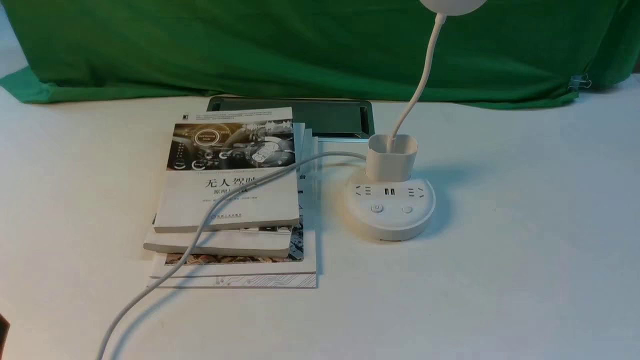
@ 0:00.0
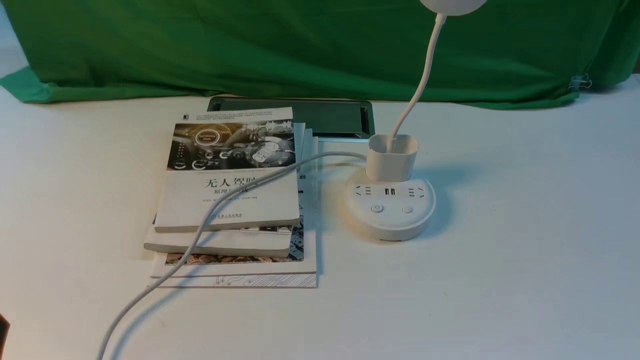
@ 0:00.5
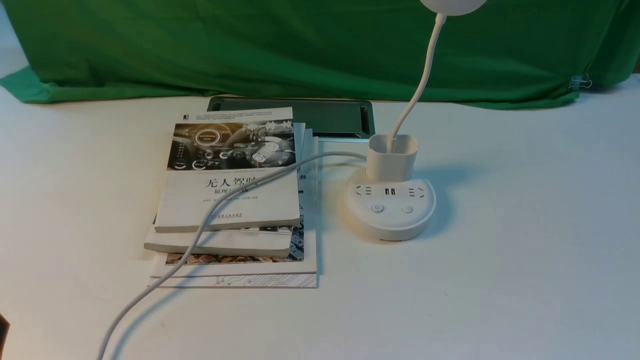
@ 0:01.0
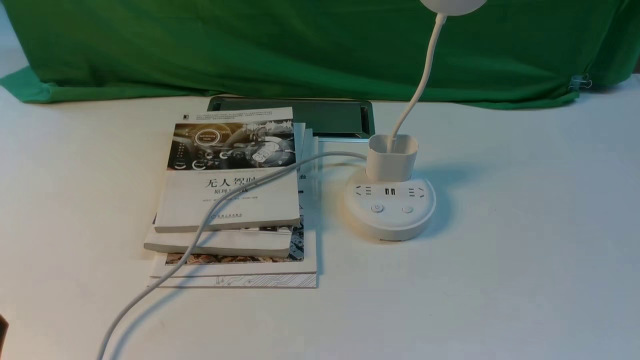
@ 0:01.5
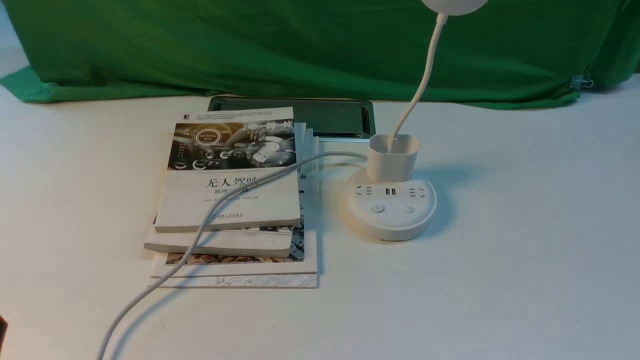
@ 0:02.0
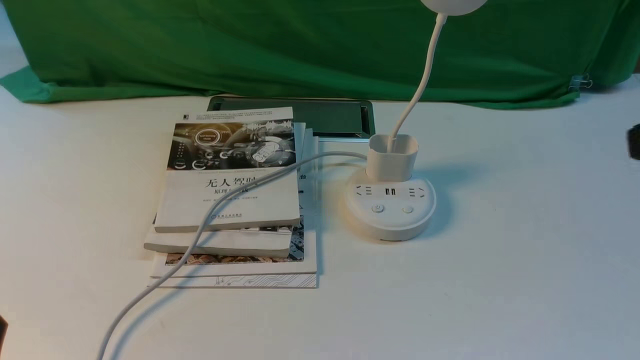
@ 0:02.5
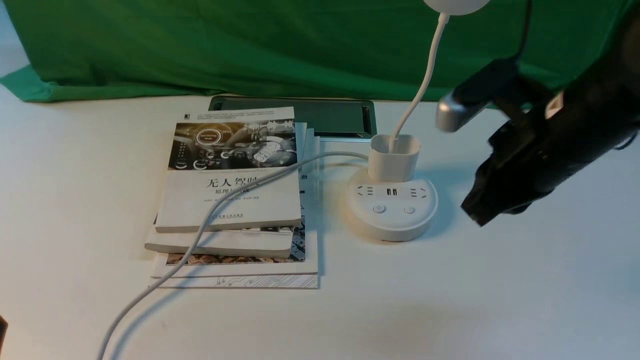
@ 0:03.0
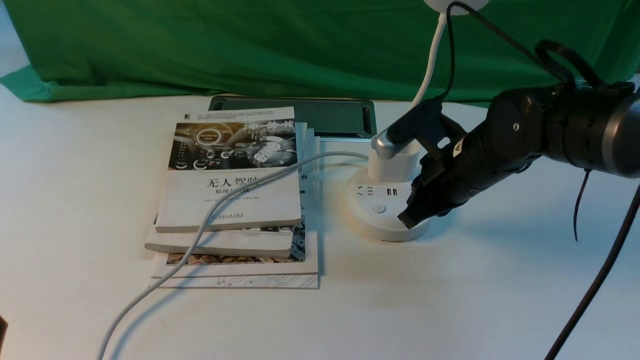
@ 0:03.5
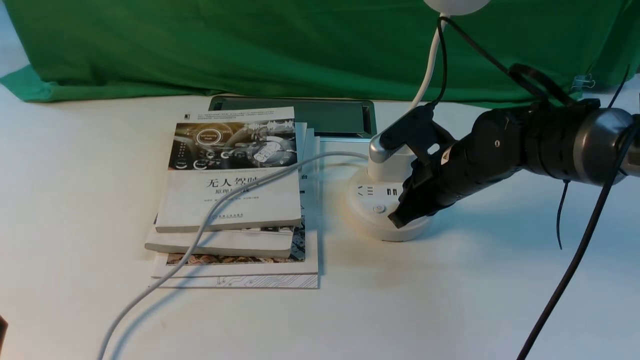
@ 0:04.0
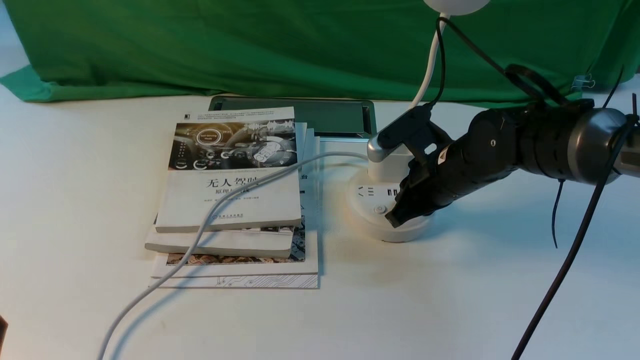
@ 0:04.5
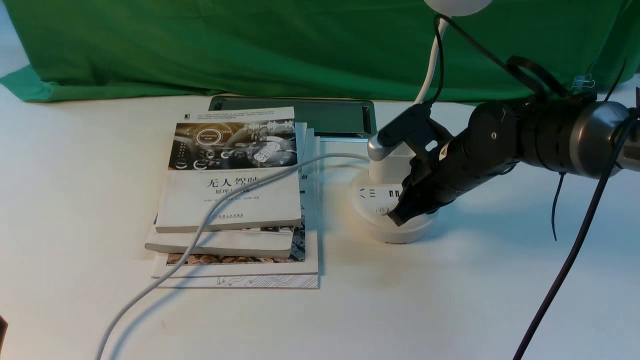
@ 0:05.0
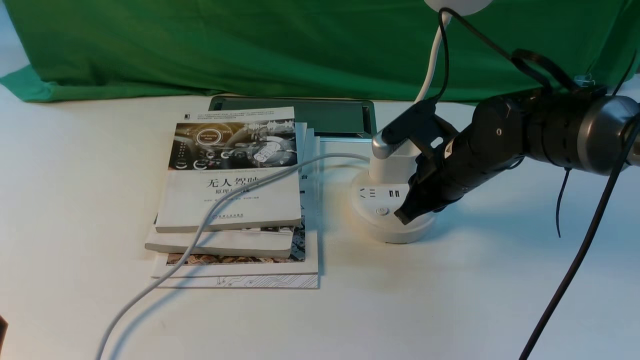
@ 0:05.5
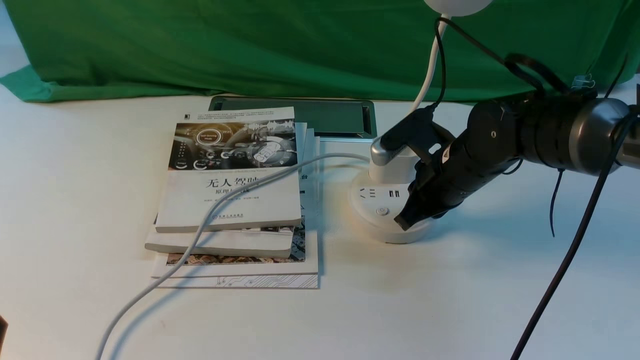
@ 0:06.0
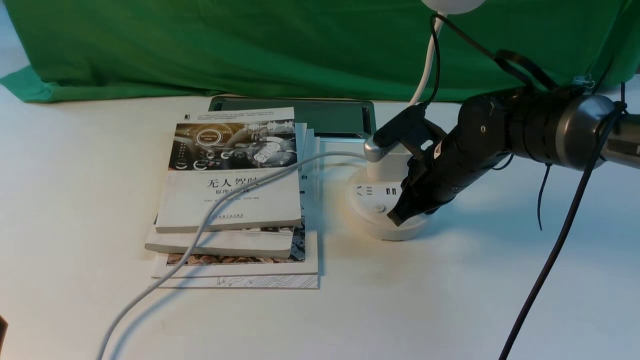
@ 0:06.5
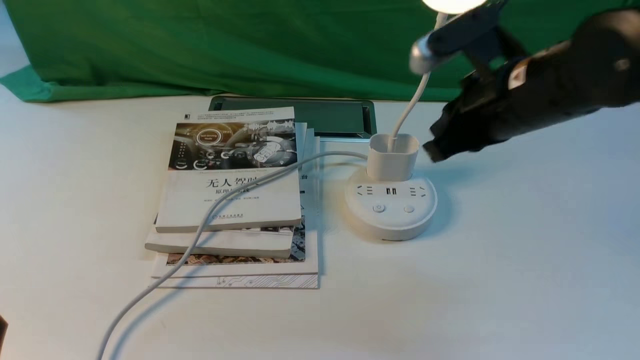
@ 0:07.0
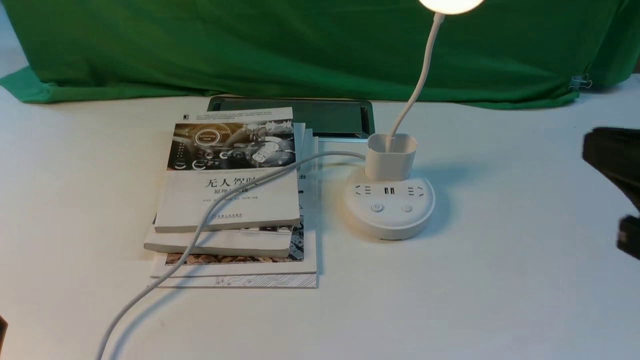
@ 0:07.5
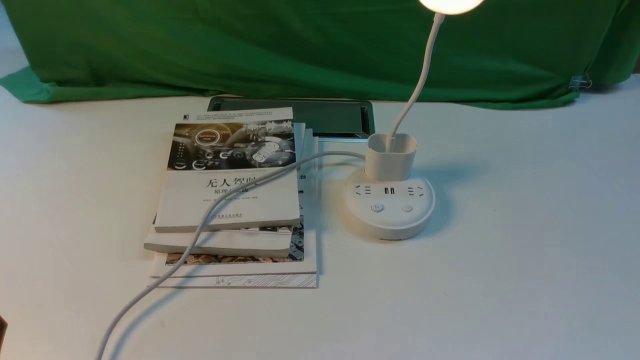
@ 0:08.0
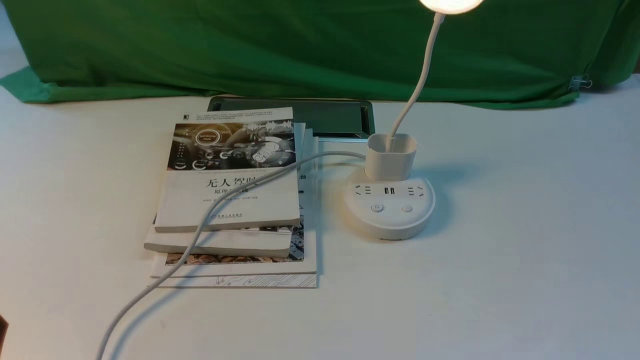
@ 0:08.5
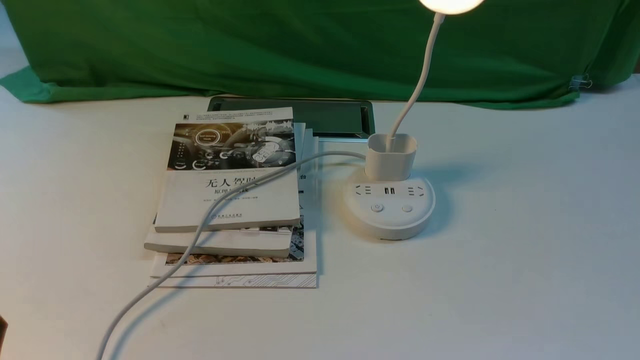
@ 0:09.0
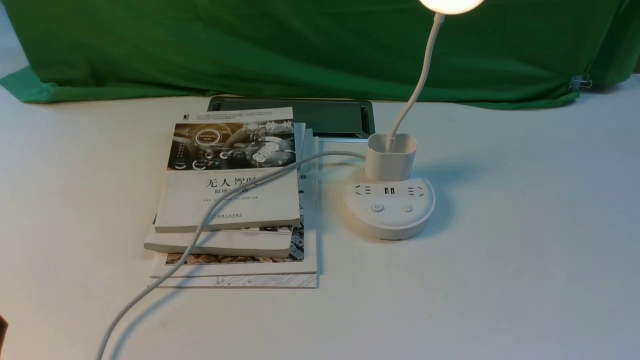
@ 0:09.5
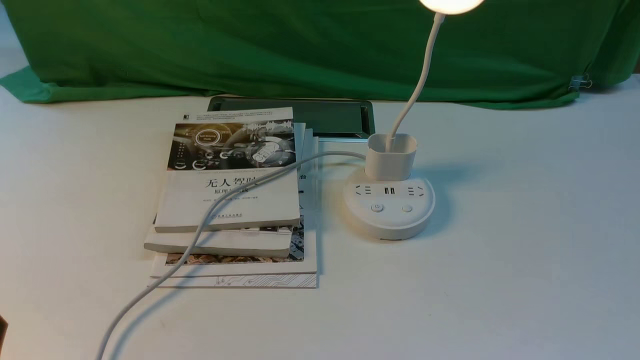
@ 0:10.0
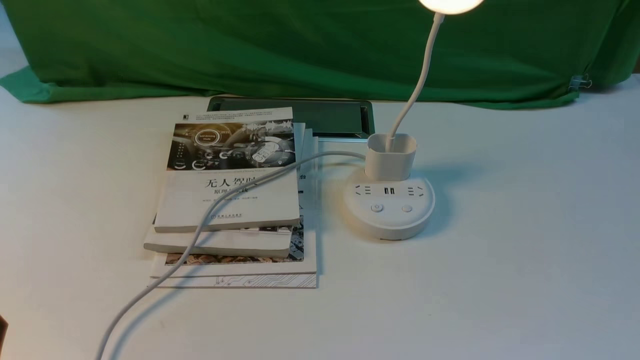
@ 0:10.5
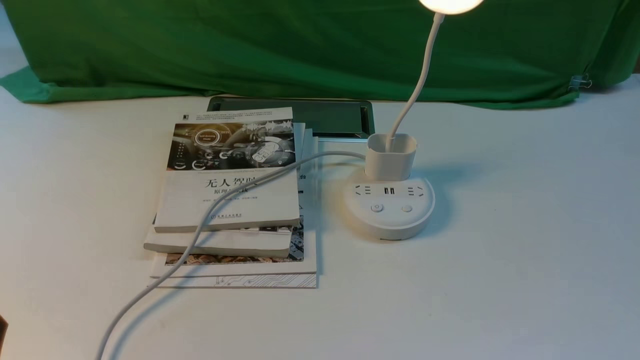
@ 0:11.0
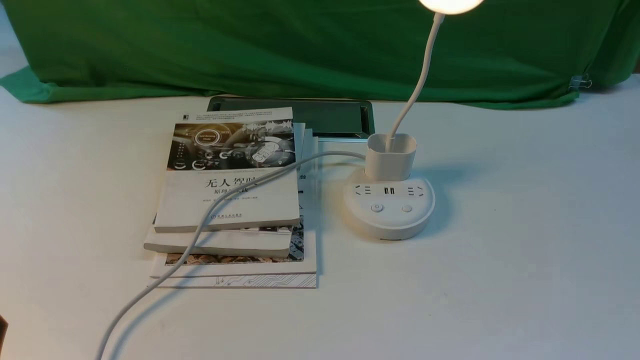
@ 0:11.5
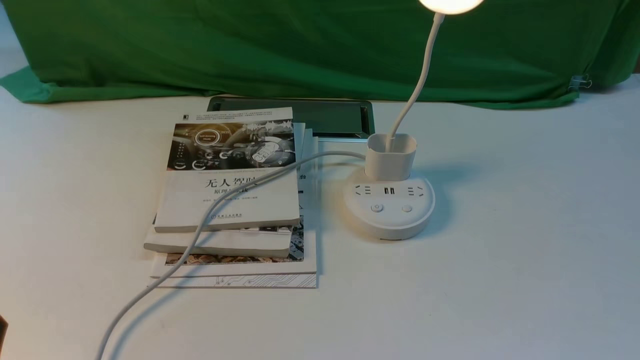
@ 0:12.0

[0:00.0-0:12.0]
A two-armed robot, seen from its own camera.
Step, 0:00.0 to 0:06.5: use the right arm to press the button switch on the lamp holder.
0:02.0 to 0:04.0: The right gripper is displaced forward and to the left by about 35 cm, and closes its fingers.
0:04.0 to 0:06.0: The grippers stay close to where they were, moving slightly.
0:06.0 to 0:08.0: The right gripper shifts about 35 cm backward and to the right, and opens up.
0:10.0 to 0:12.0: Neither gripper changes place.

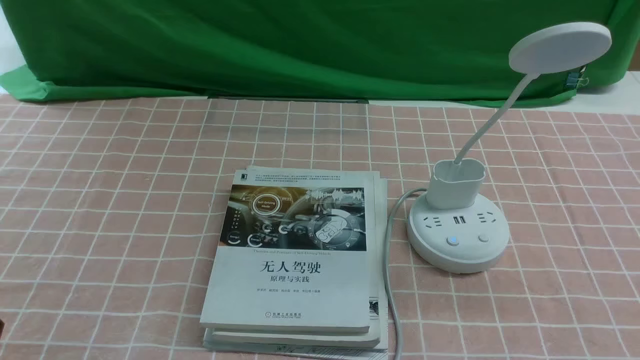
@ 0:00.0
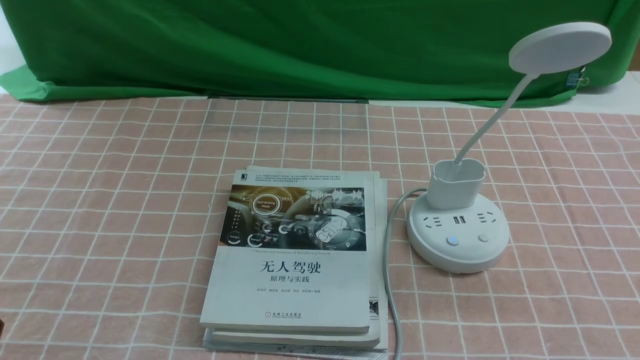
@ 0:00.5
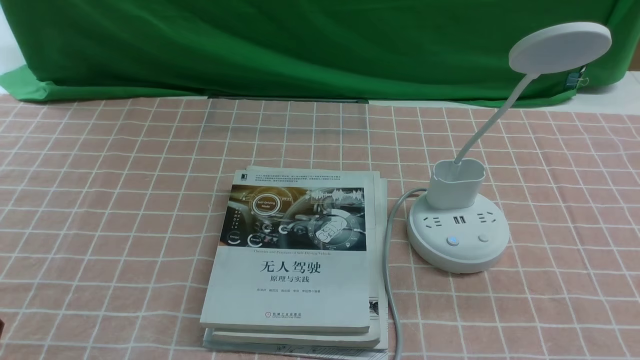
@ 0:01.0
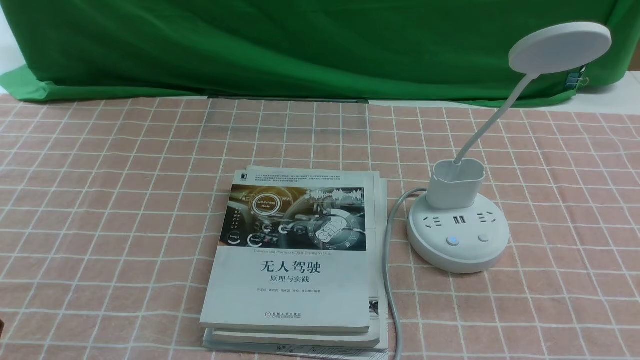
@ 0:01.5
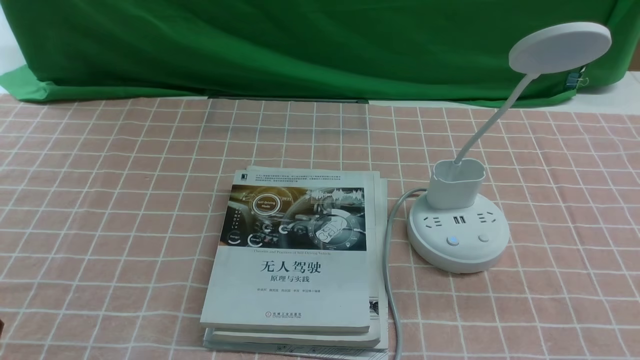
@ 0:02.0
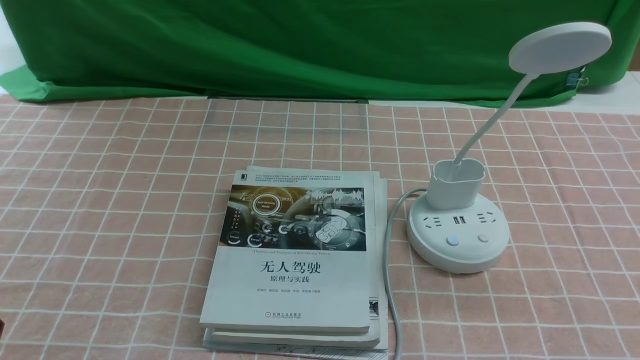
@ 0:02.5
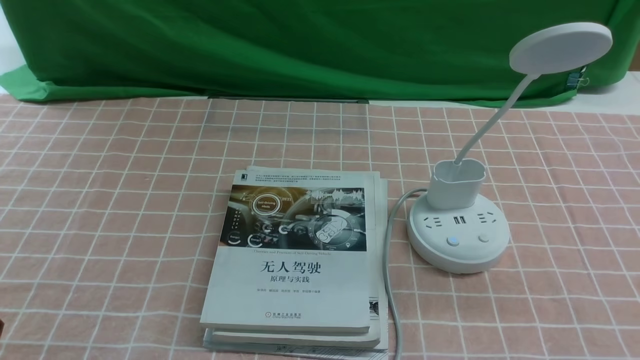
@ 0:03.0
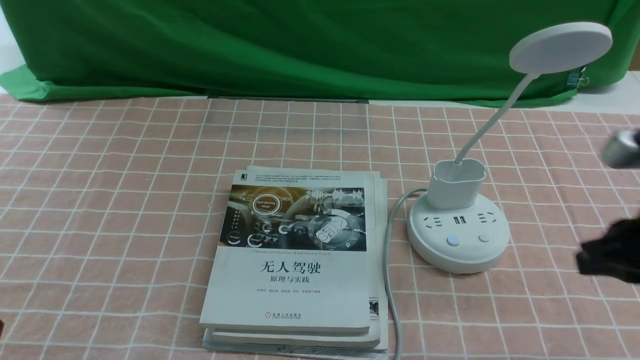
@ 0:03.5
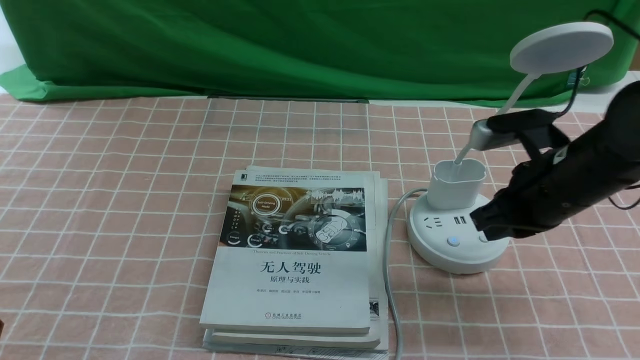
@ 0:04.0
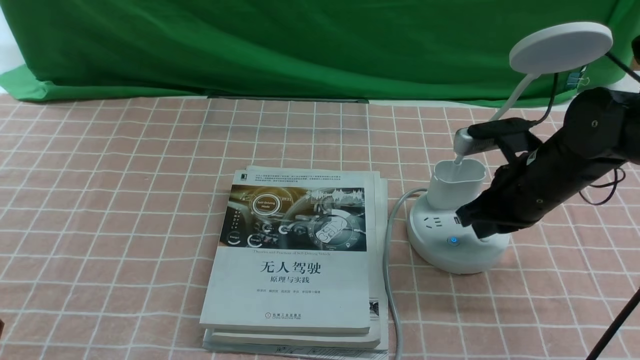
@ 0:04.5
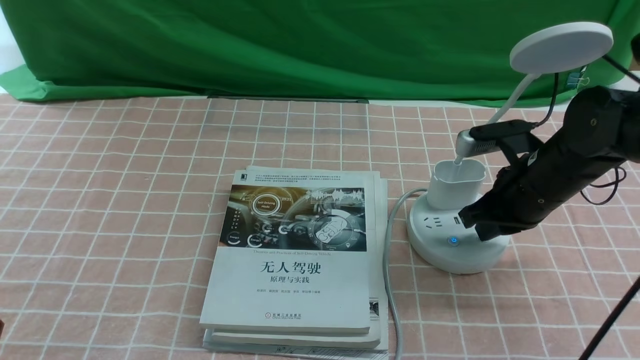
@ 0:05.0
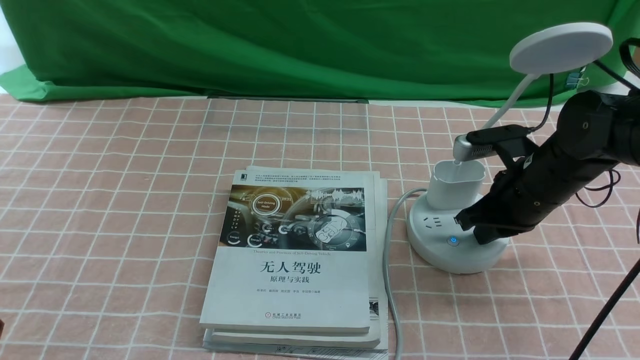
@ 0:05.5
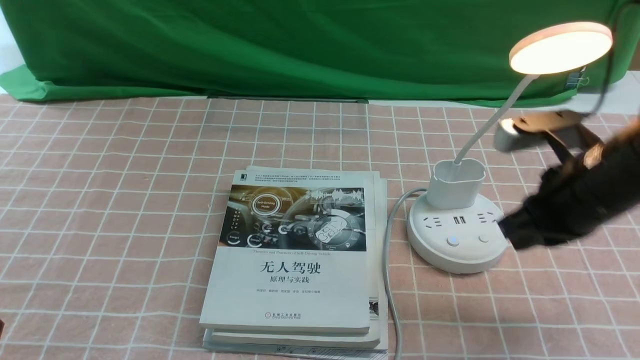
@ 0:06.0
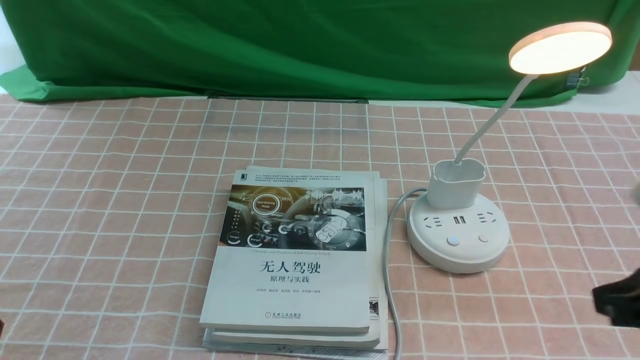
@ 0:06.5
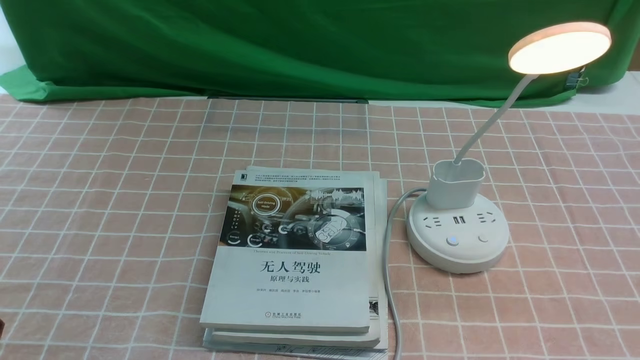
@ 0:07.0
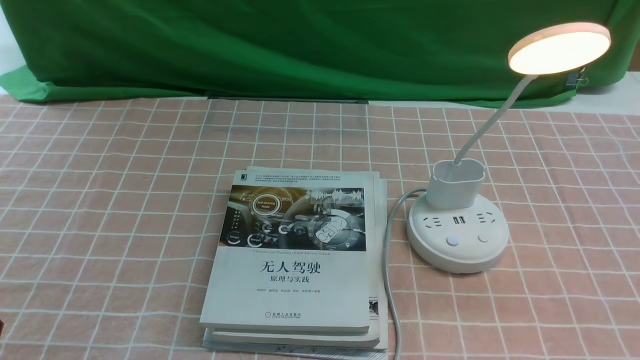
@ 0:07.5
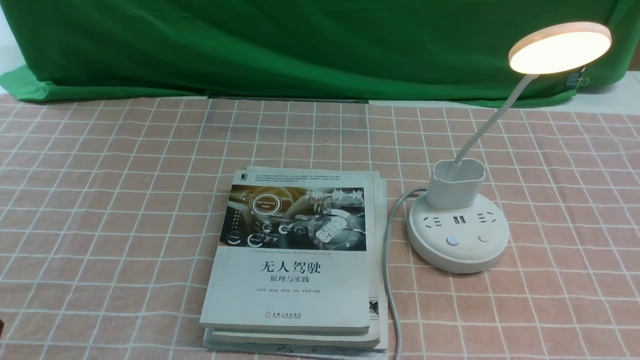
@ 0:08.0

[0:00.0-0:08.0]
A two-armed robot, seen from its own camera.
Step, 0:00.0 to 0:05.5: use the right arm to press the button switch on the lamp holder.
0:00.0 to 0:02.0: Both grippers stay put.
0:02.0 to 0:04.0: The right gripper shifts roughly 25 cm forward, and closes.
0:04.0 to 0:06.0: The grippers move only a little.
0:06.0 to 0:08.0: The right gripper shifts some 20 cm backward.
